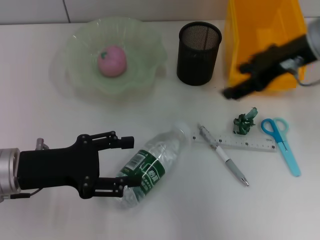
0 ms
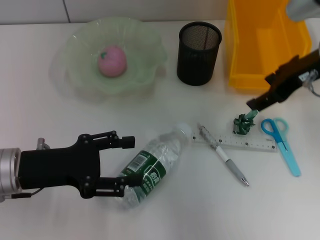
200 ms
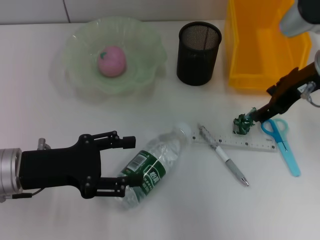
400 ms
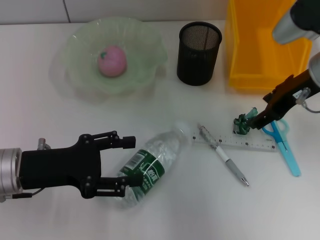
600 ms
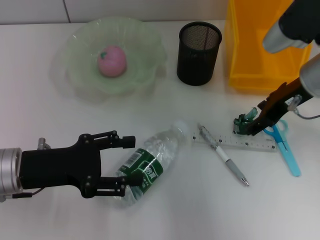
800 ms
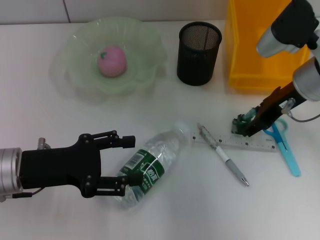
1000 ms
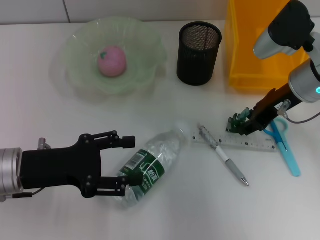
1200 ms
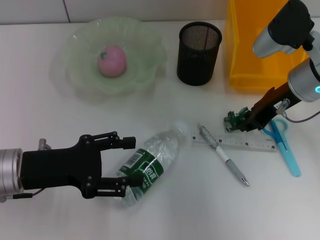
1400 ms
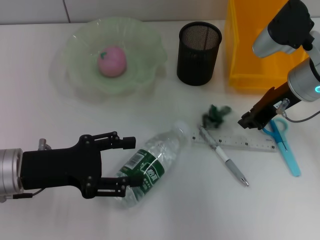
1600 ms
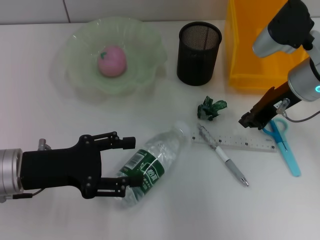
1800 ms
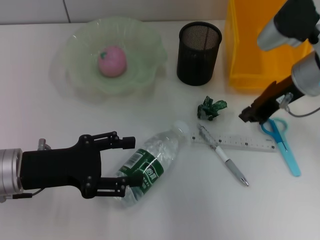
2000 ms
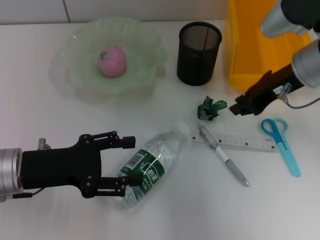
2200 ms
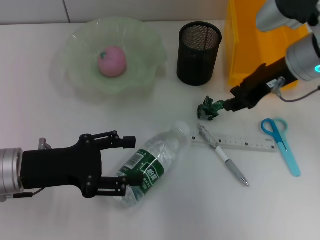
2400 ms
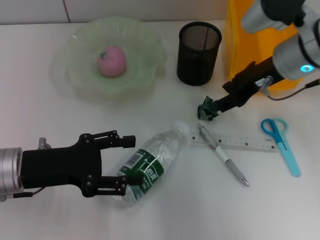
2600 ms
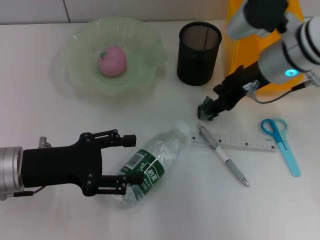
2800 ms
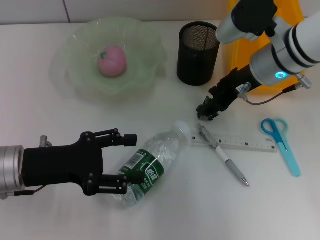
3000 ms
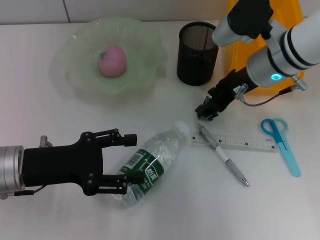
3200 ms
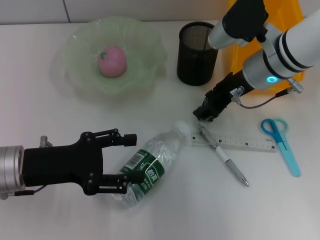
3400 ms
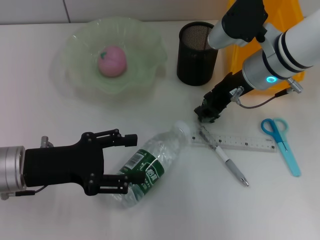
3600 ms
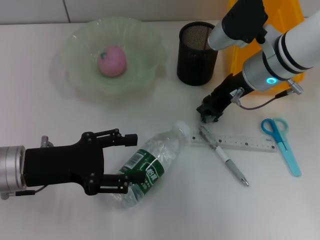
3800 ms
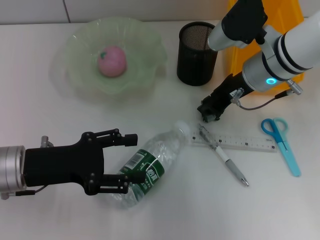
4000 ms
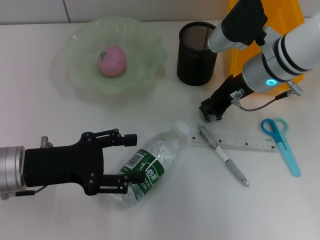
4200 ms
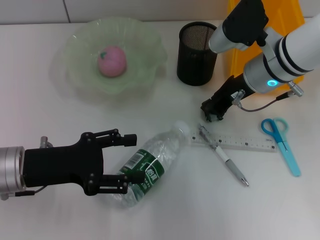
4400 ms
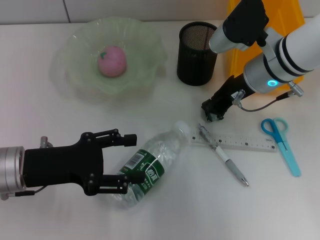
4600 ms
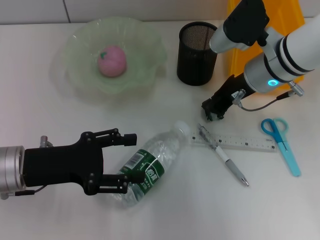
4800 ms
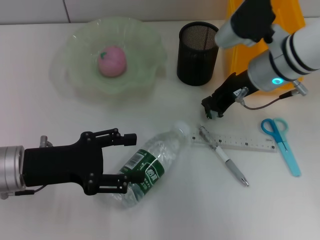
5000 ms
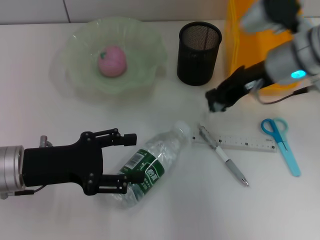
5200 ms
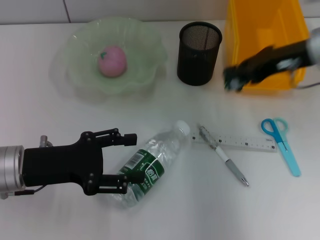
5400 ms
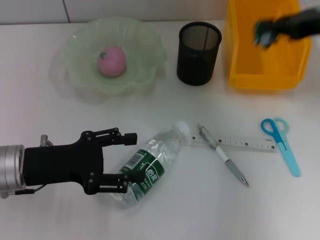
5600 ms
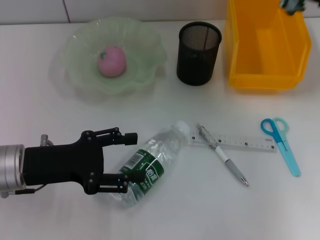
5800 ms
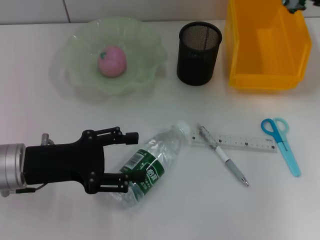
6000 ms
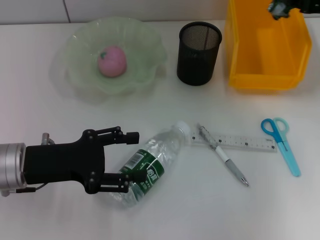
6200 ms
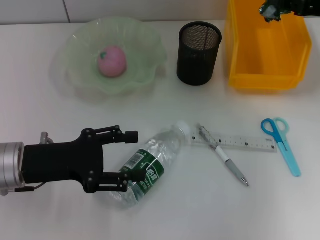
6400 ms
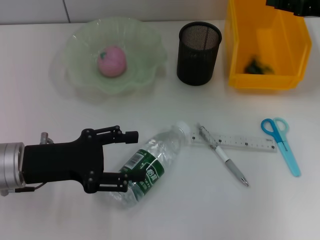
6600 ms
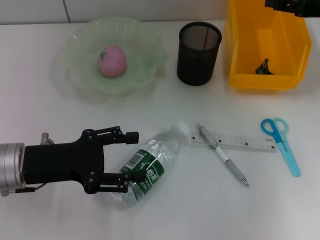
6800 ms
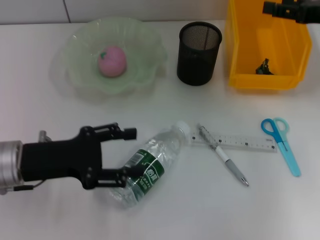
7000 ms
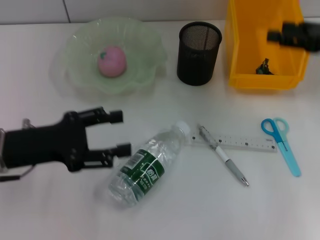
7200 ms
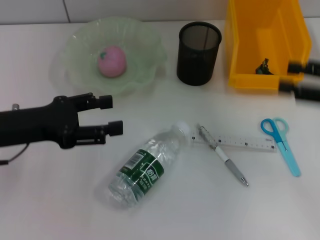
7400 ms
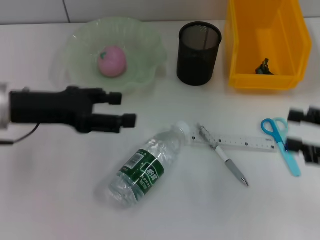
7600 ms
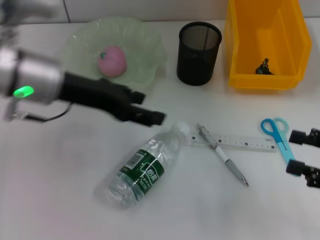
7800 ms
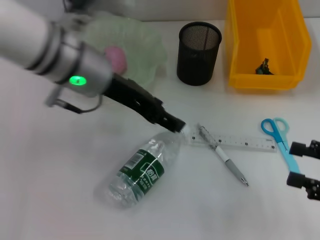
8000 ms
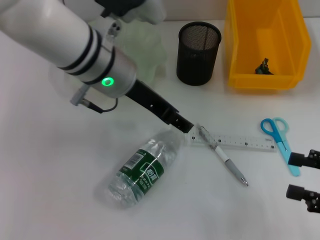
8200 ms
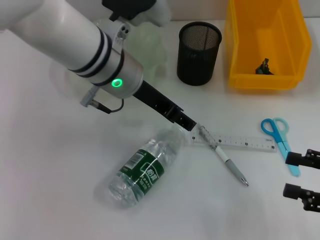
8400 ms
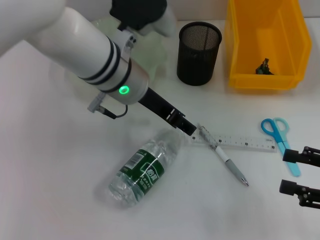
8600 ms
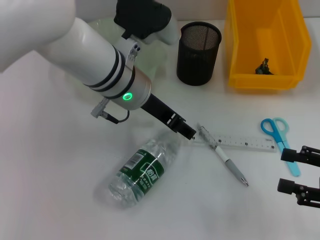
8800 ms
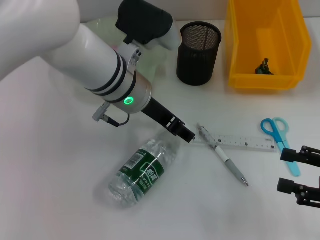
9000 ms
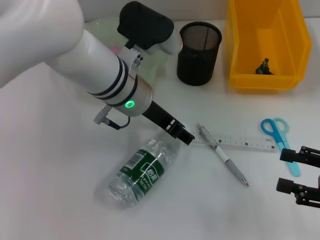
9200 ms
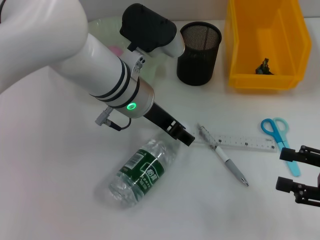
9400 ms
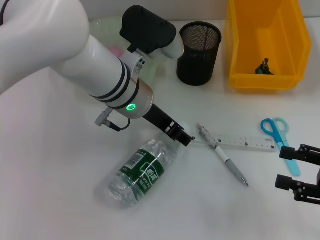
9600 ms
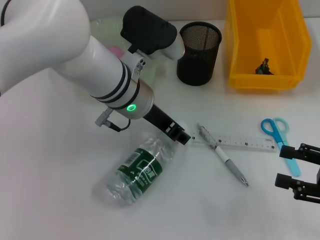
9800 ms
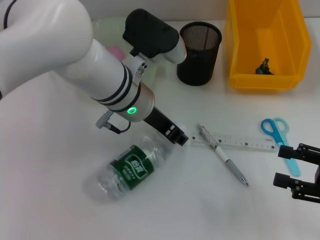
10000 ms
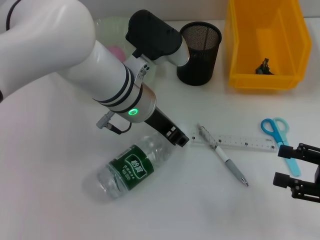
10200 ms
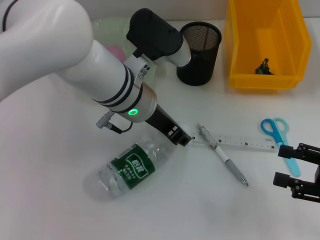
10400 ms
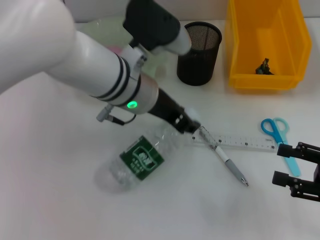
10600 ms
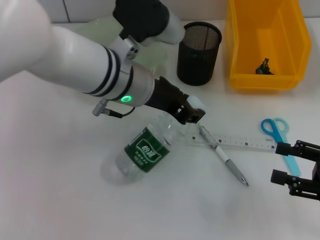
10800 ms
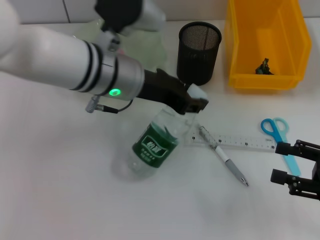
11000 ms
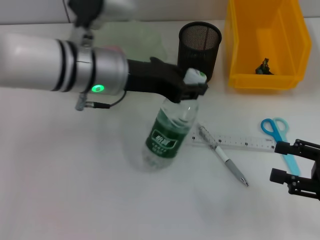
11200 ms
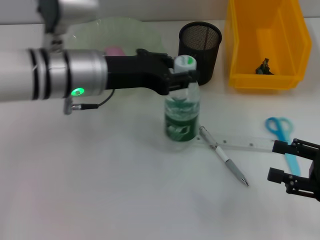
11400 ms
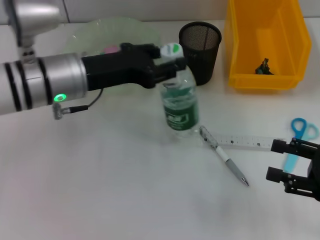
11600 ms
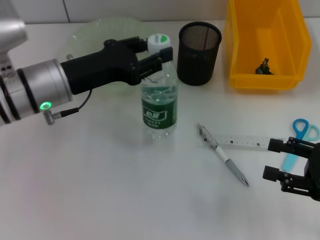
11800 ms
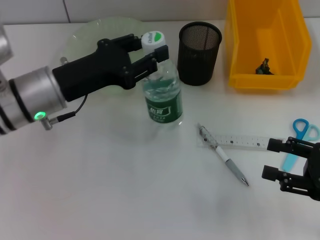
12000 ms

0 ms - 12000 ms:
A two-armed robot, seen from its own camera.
Step, 0 ms - 4000 ms: Grab the plastic with the right hand.
Step, 4200 ms - 7200 ms: Place the plastic into the trash can with the right hand.
Step, 7400 ms - 10200 ms: Grab the water bottle with the left hand.
0 ms - 1600 ms: The right gripper is displaced downward by roughly 5 cm, and closes up.
1600 ms - 3000 ms: The right gripper moves approximately 5 cm, and opens up.
3000 ms - 4400 ms: The right gripper closes its fingers.
4400 ms - 6000 ms: The right gripper heads to the right, covering some 15 cm.
6000 ms - 7600 ms: The right gripper goes some 20 cm backward and downward, and opens its fingers. The left gripper travels upward by some 5 cm.
7600 ms - 9000 ms: The right gripper moves roughly 5 cm; the left gripper heads to the right, covering some 20 cm.
9000 ms - 10400 ms: The left gripper closes its fingers.
10400 ms - 12000 ms: The left gripper heads to the left, covering approximately 15 cm.

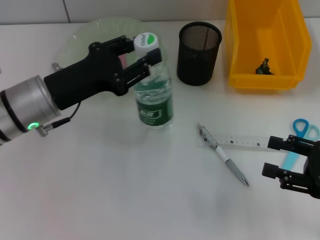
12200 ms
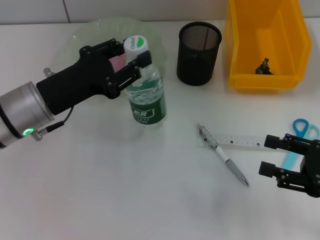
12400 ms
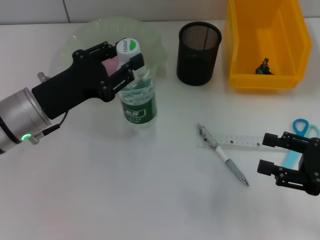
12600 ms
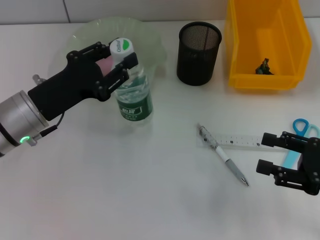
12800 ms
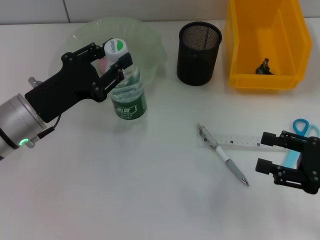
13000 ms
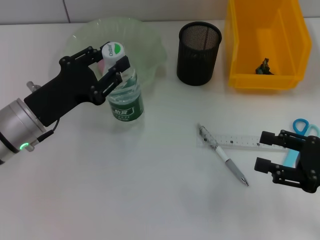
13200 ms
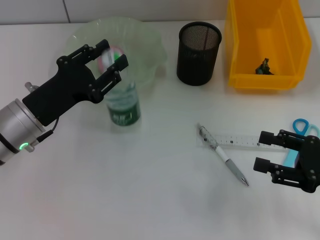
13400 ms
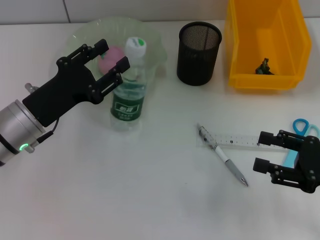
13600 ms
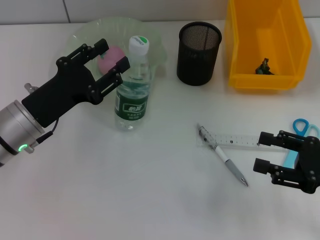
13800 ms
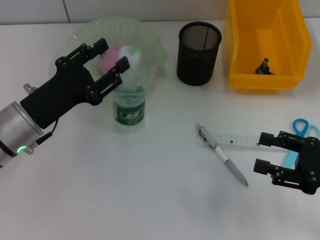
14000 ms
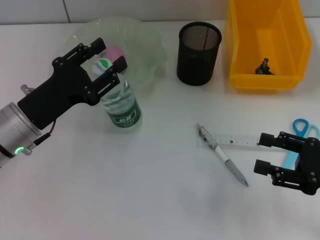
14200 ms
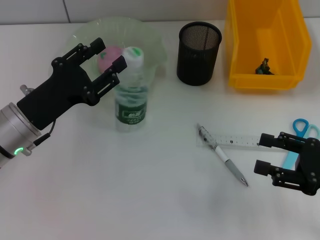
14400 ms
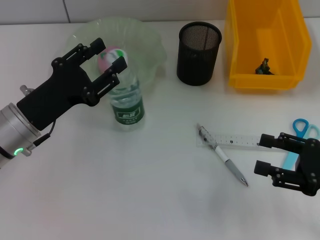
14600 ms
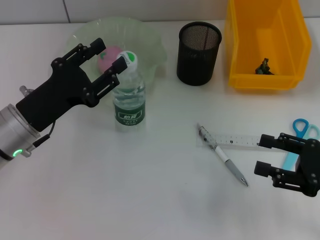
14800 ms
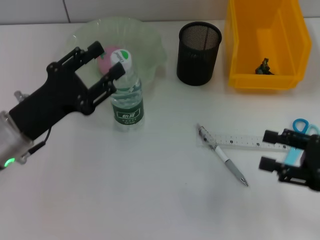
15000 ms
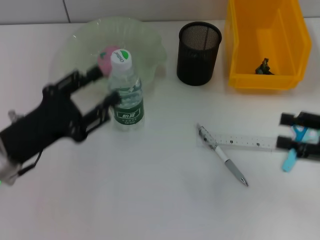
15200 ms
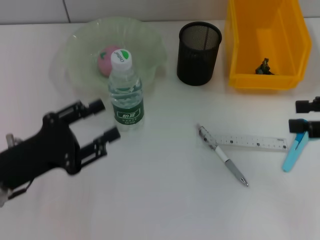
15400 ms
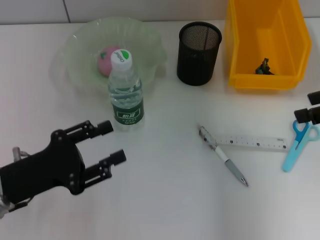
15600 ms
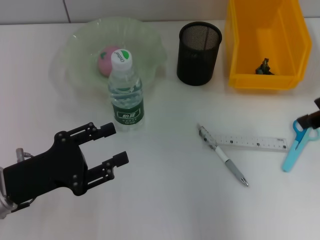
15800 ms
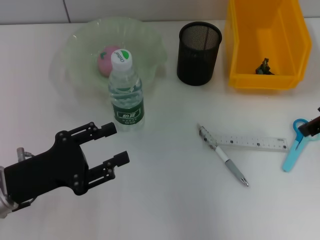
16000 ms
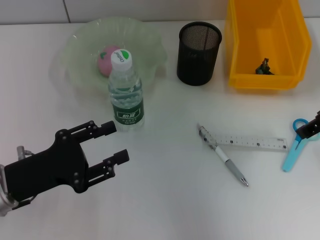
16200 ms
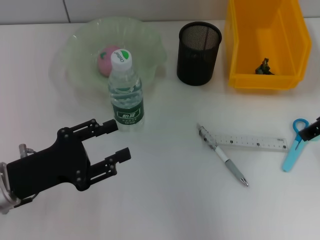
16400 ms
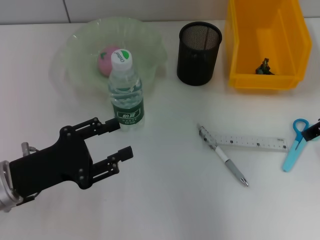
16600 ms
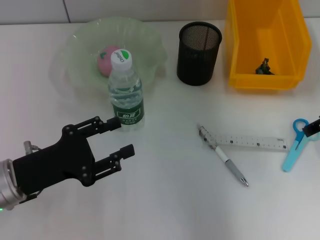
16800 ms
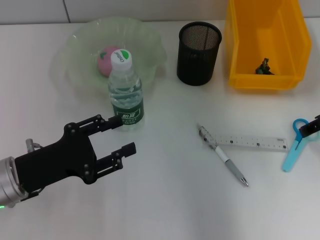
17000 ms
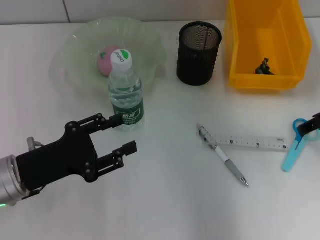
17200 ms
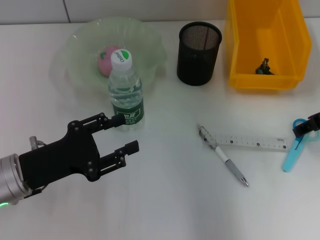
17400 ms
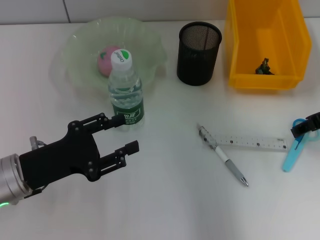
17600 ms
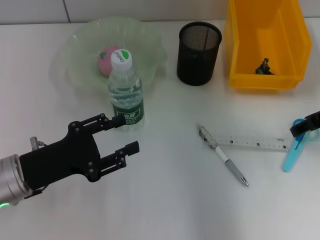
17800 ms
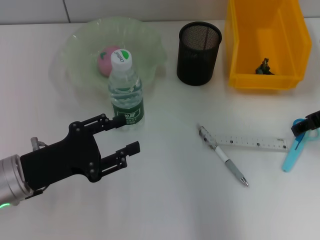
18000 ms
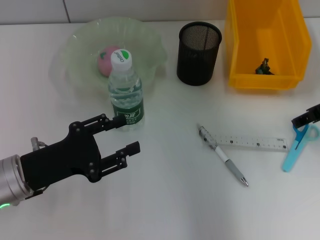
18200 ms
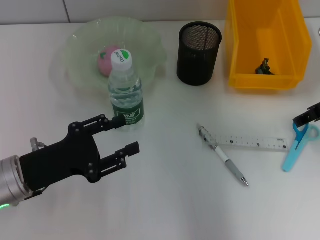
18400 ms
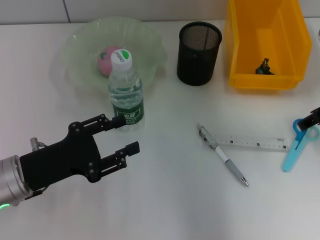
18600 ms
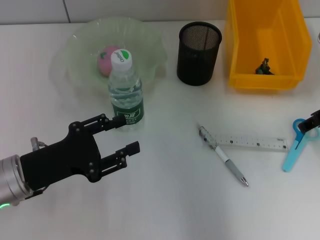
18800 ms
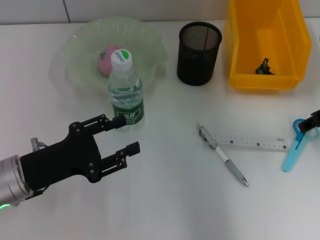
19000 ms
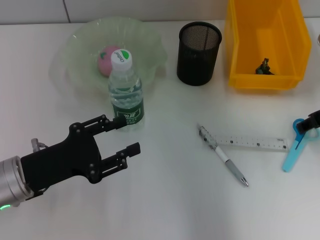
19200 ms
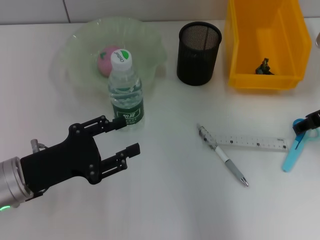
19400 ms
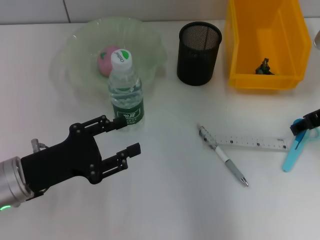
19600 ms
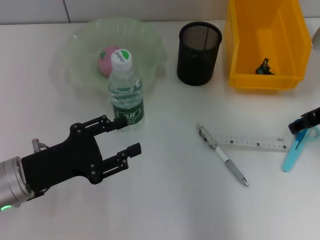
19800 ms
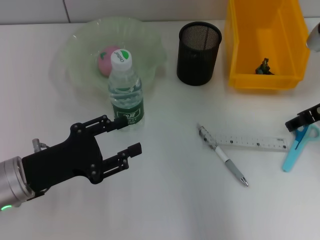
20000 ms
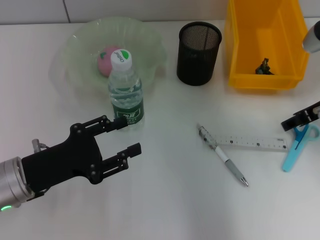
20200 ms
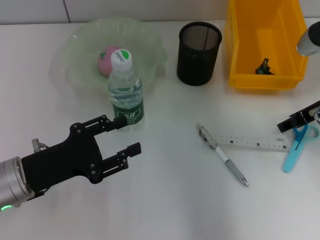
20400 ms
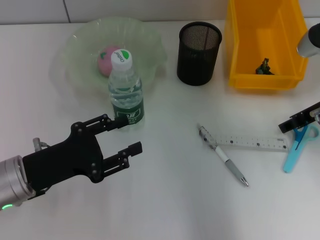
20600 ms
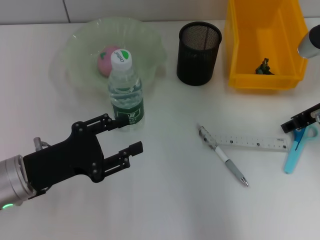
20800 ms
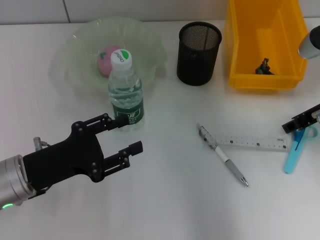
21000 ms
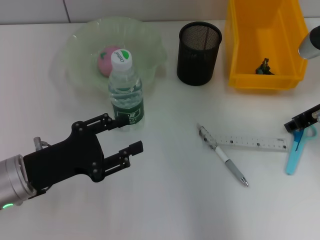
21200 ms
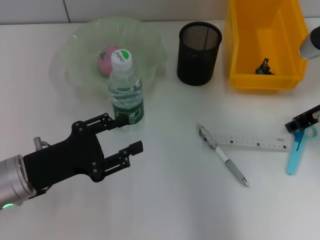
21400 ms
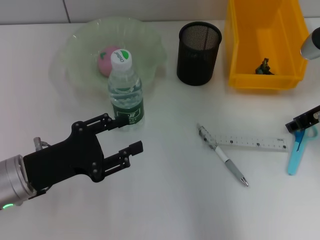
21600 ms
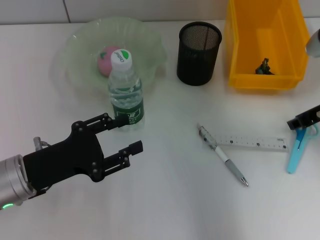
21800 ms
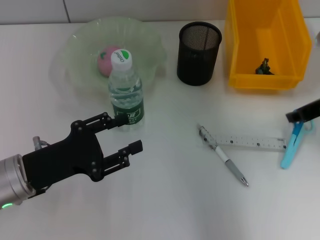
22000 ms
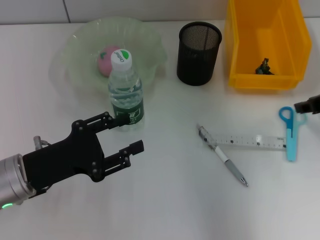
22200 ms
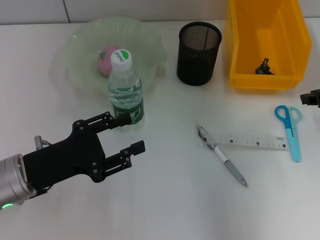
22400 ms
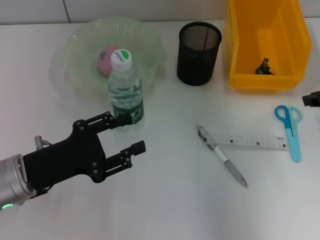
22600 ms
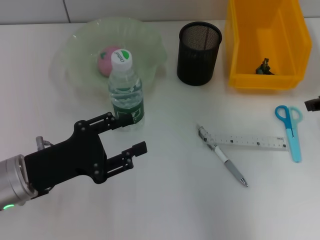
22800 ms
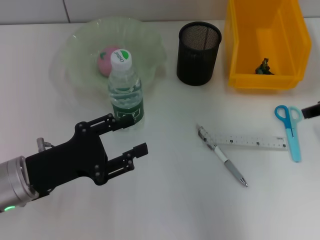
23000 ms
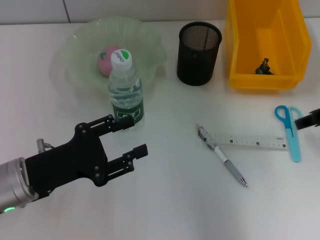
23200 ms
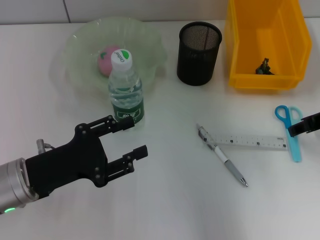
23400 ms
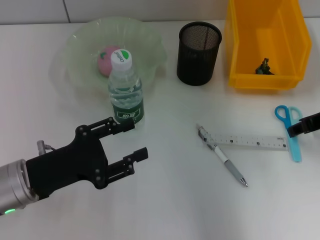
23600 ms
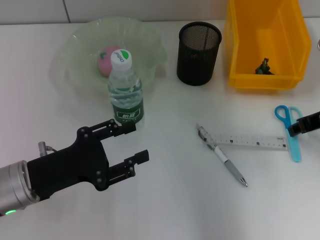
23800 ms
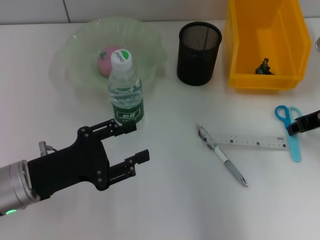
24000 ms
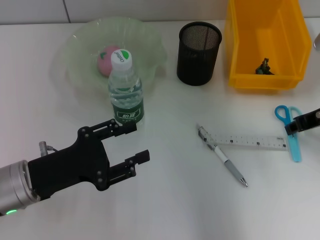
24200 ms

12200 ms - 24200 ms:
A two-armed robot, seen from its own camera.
Step, 12200 ms - 14800 ms: Place the water bottle on the table with the left hand.
12200 ms - 13800 ms: The left gripper opens its fingers.
13800 ms - 15200 ms: The right gripper shifts roughly 5 cm upward. Meanwhile the left gripper ends up roughly 5 cm from where it was.
15200 ms - 16600 ms: The right gripper travels forward, upward and to the left by some 15 cm.
16600 ms - 19800 ms: The grippers move only a little.
19800 ms - 21200 ms: The grippers stay close to where they were, moving slightly.
21200 ms - 22600 ms: The right gripper moves approximately 5 cm, and closes up.
22600 ms - 24200 ms: The right gripper ends up roughly 5 cm from where it was.
